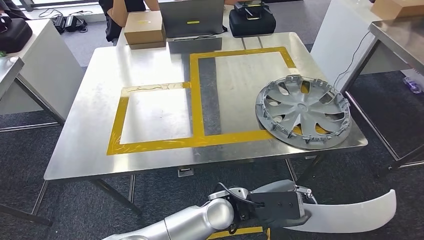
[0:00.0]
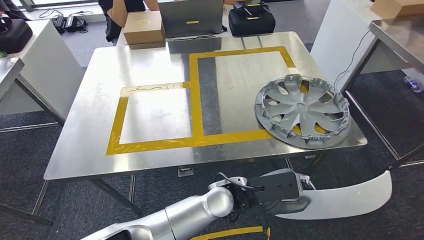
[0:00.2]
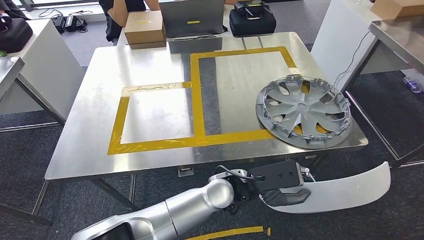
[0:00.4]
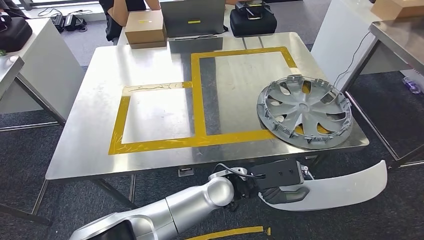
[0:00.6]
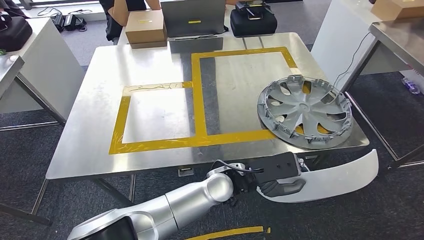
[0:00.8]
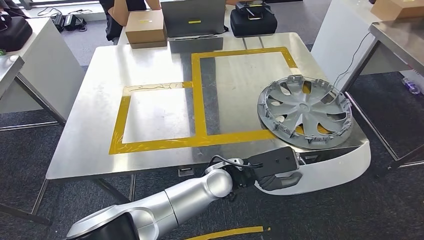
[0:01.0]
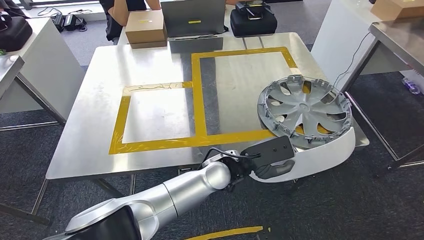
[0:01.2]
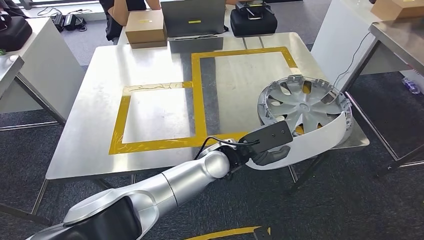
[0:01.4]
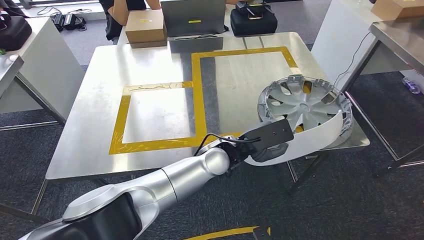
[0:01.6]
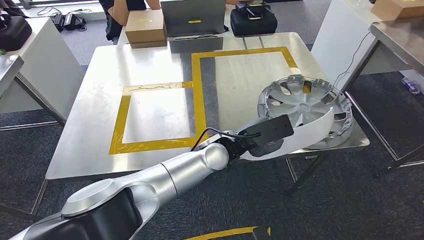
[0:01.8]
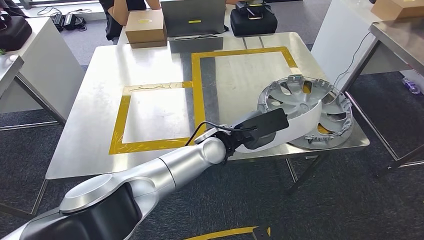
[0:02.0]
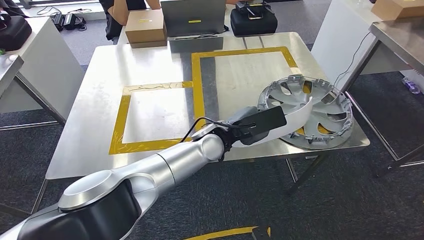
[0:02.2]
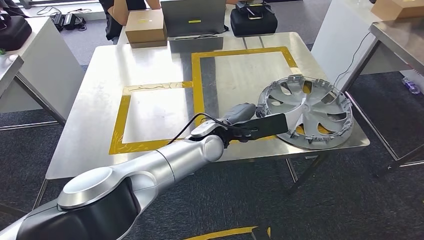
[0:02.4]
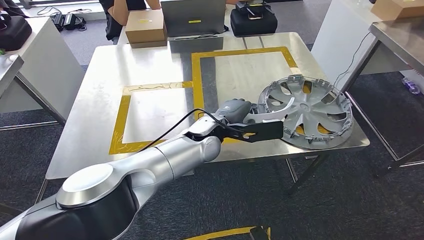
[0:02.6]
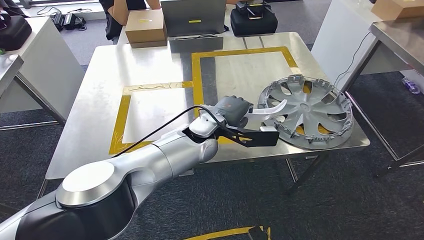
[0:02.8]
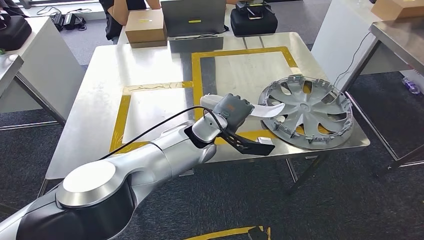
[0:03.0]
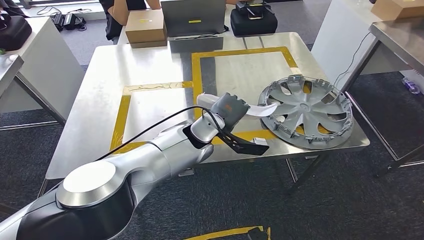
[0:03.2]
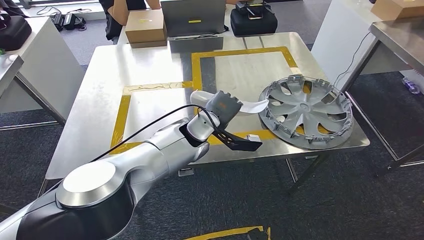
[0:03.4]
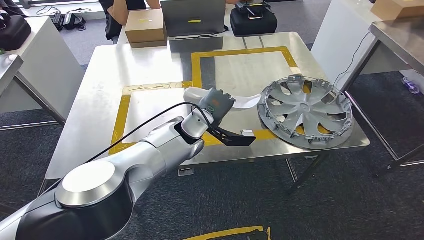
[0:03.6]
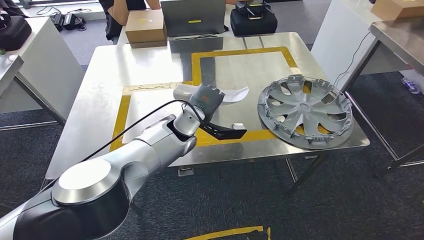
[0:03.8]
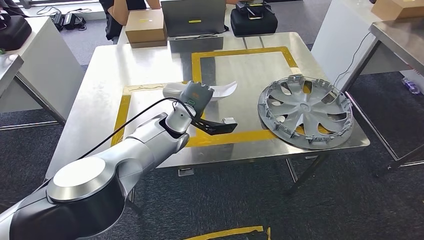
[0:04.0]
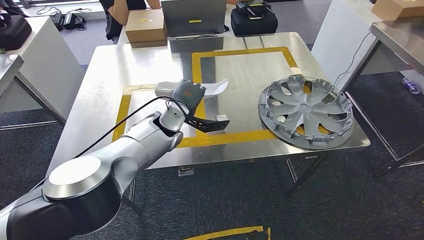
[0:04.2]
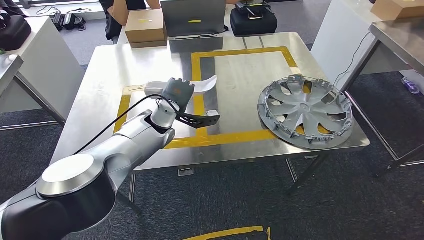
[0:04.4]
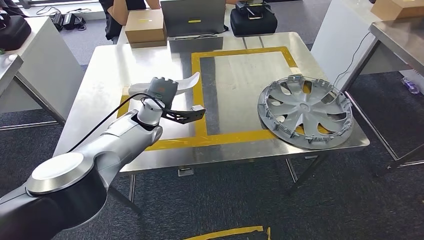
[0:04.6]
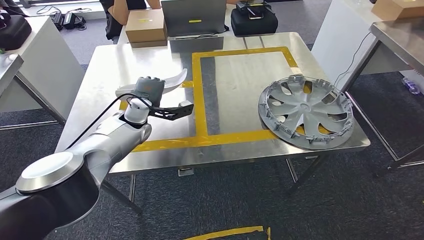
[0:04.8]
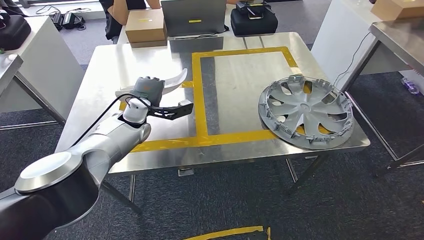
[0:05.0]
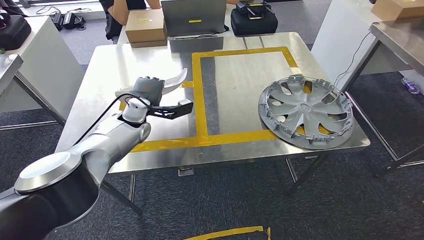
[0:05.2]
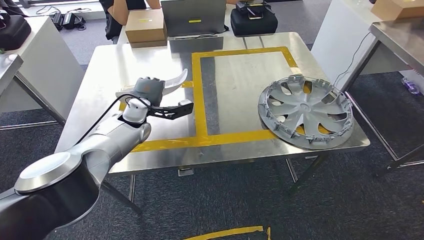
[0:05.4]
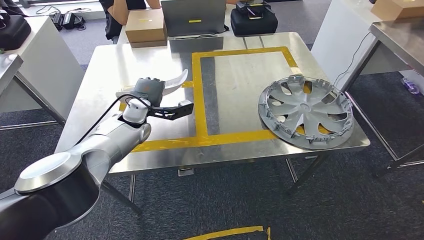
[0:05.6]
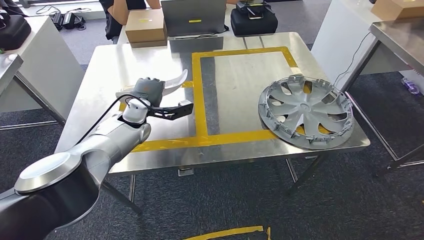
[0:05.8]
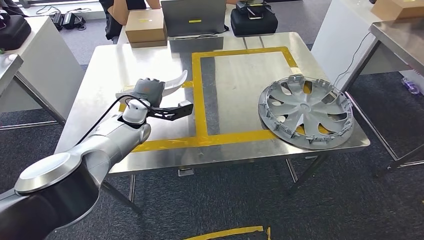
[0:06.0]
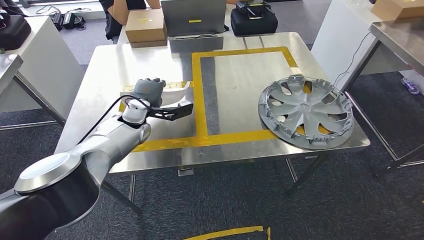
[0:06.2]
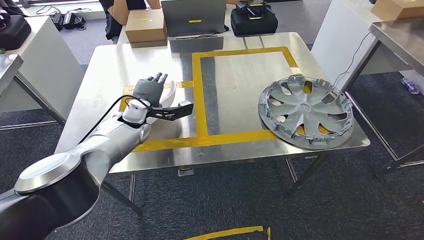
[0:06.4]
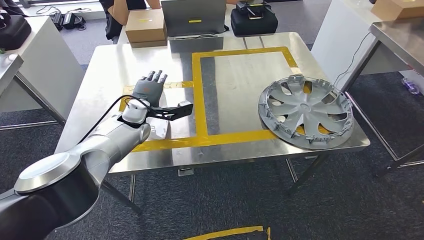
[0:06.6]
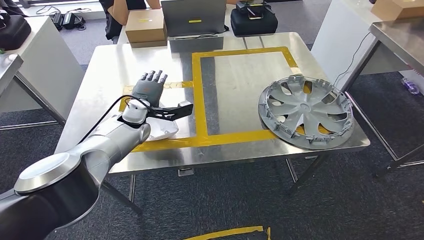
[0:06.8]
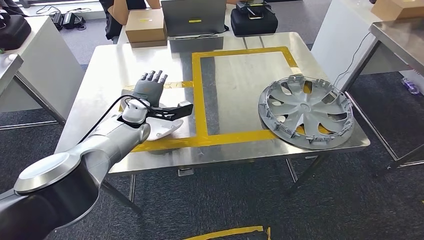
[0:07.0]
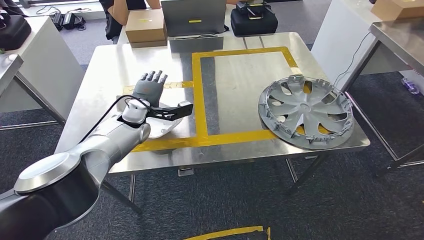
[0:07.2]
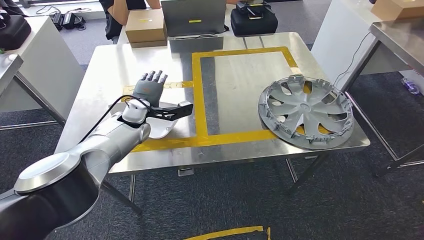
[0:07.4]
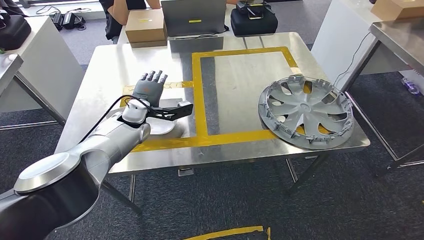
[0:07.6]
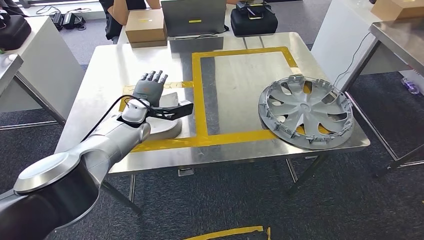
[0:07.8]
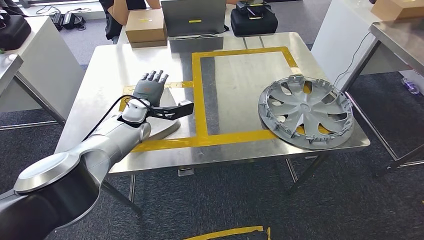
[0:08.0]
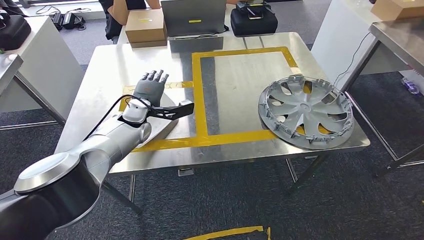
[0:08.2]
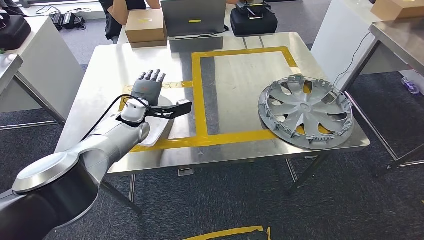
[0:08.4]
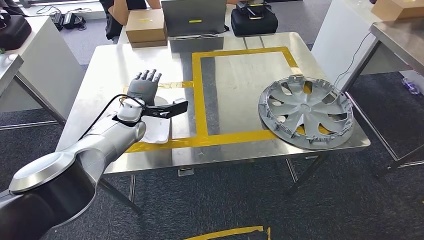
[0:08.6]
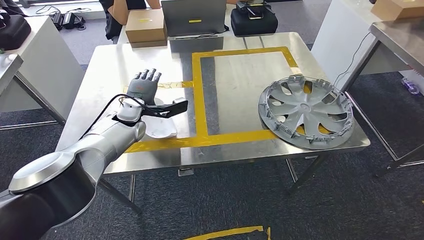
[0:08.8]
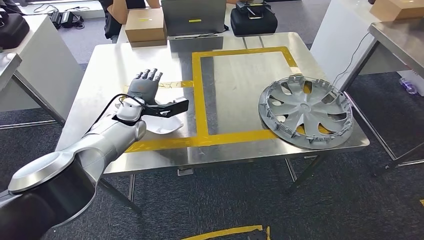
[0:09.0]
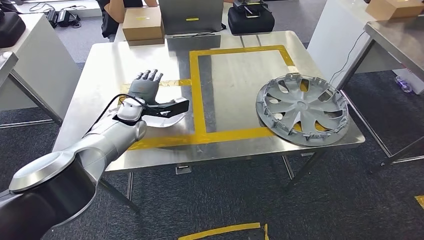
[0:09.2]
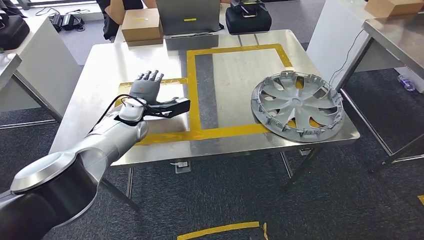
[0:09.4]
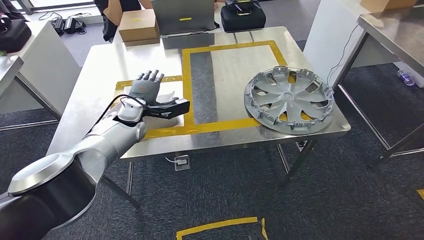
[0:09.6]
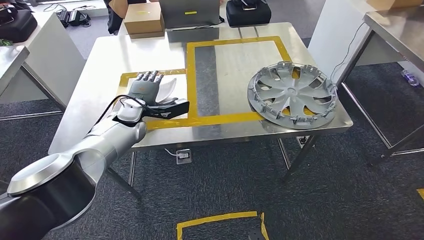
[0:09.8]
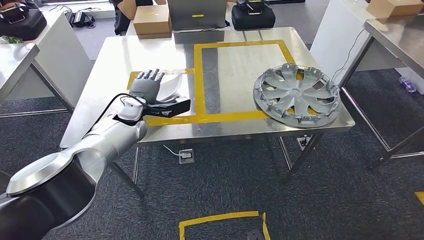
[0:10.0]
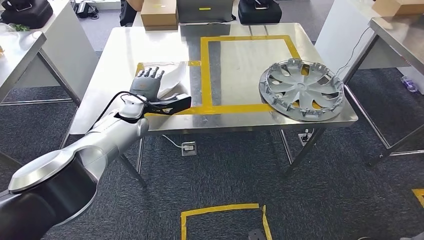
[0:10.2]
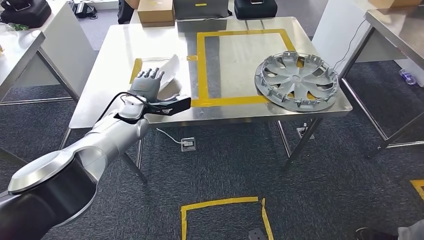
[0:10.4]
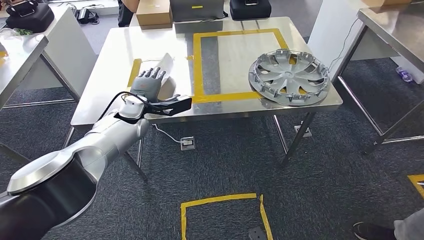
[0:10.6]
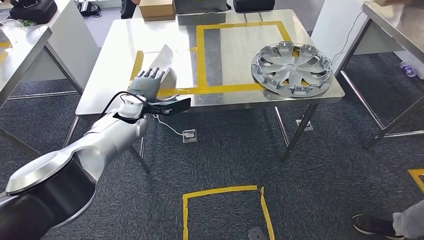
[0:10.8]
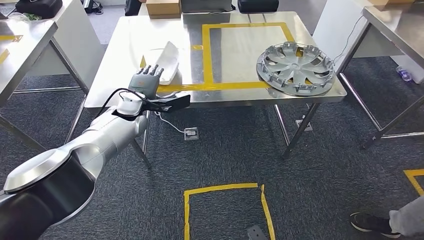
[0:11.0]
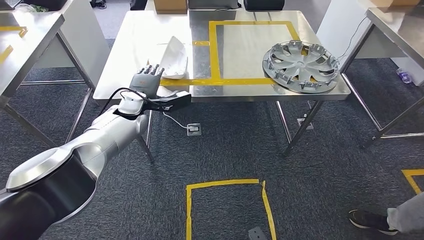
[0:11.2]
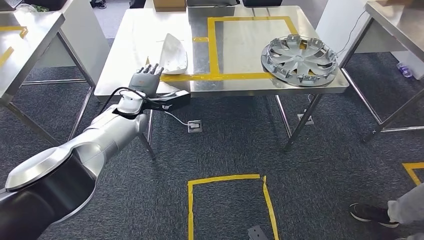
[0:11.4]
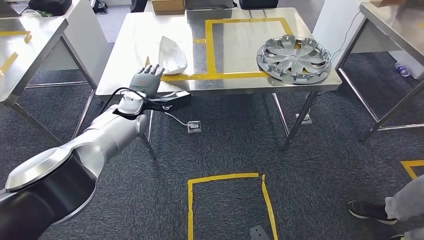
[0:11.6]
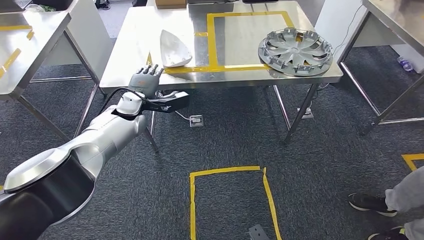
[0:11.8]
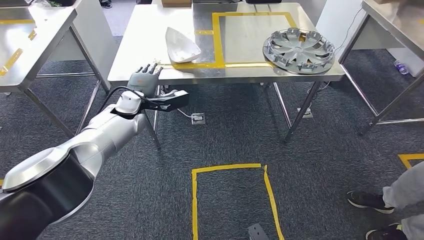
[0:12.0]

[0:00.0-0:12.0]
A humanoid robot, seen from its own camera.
Step, 0:01.6 to 0:08.4: Insert the small component into the corresponding slot on the workbench.
0:01.6 to 0:03.0: The left hand ends up approximately 5 cm from where it was.
0:03.0 to 0:04.4: The left hand travels to the left and forward by roughly 15 cm.
0:04.4 to 0:06.0: The left hand travels to the left by approximately 10 cm.
0:06.0 to 0:07.6: Neither hand changes place.
0:07.6 to 0:09.0: There are only small adjustments of the hands.

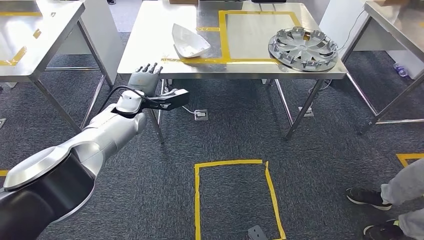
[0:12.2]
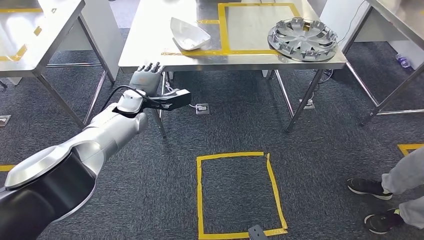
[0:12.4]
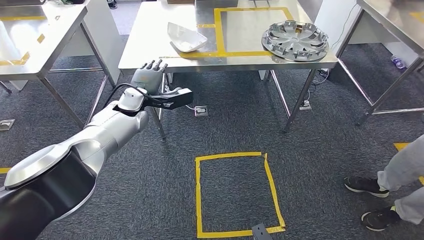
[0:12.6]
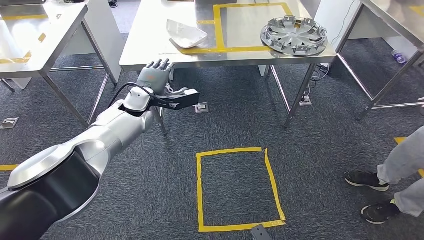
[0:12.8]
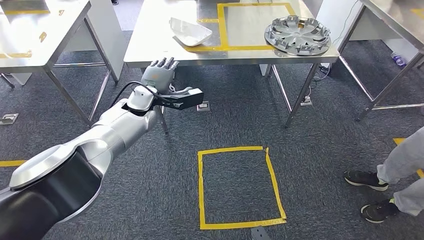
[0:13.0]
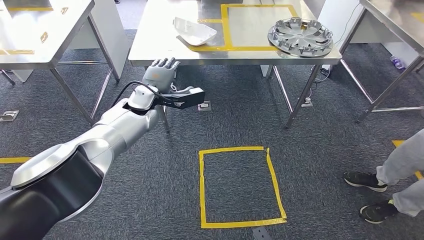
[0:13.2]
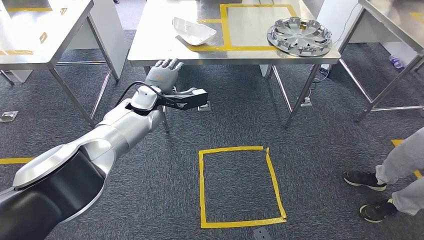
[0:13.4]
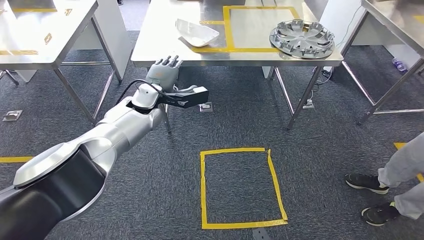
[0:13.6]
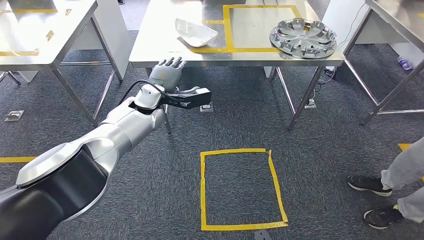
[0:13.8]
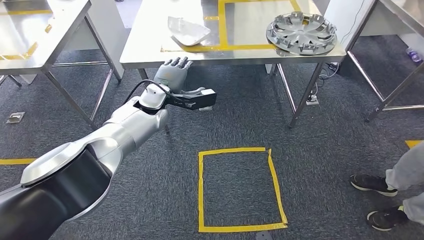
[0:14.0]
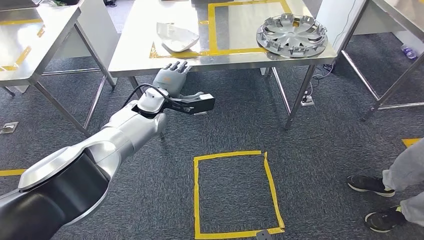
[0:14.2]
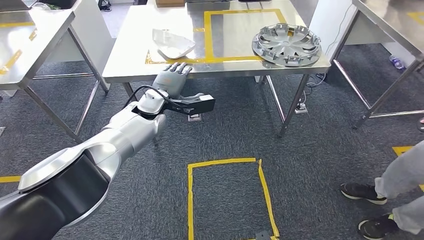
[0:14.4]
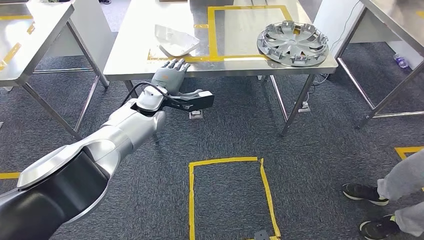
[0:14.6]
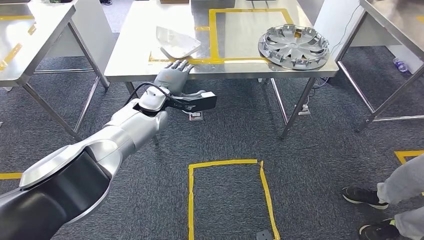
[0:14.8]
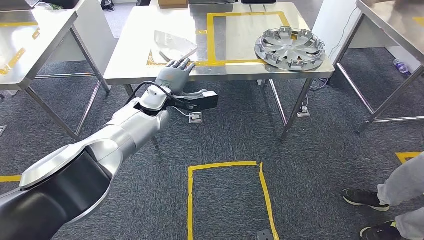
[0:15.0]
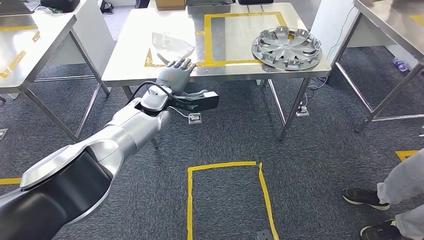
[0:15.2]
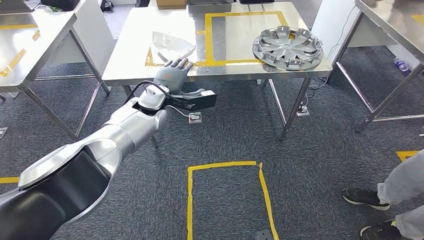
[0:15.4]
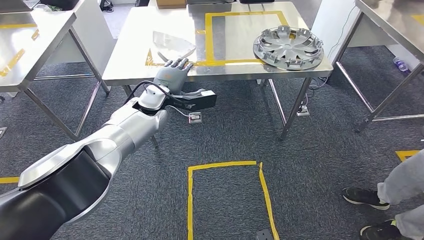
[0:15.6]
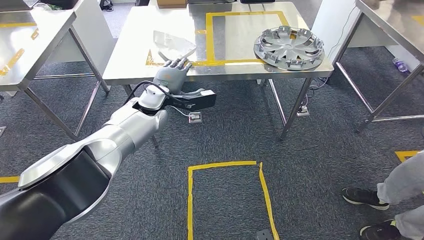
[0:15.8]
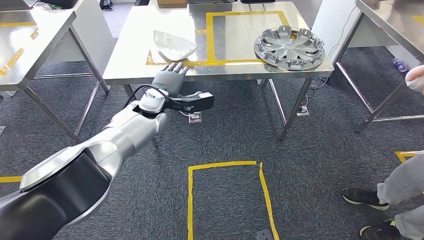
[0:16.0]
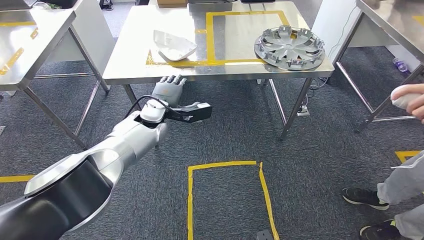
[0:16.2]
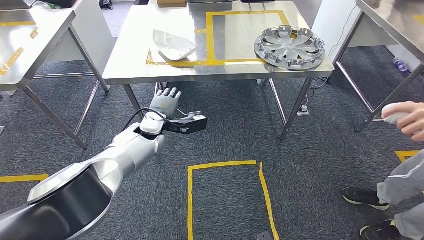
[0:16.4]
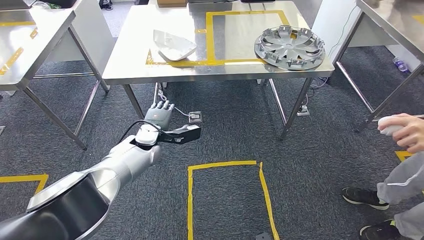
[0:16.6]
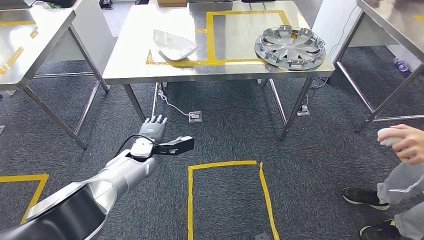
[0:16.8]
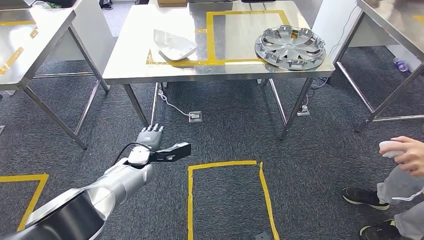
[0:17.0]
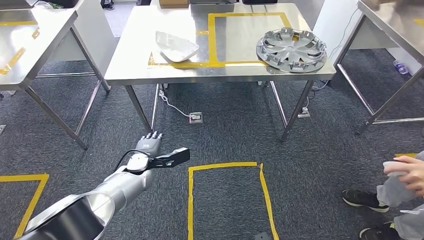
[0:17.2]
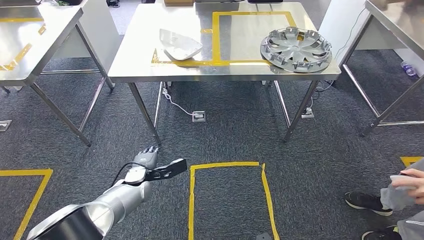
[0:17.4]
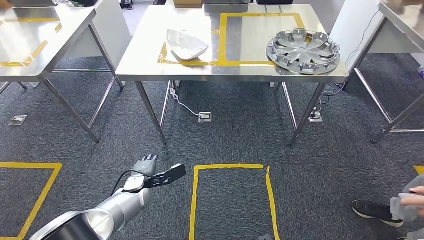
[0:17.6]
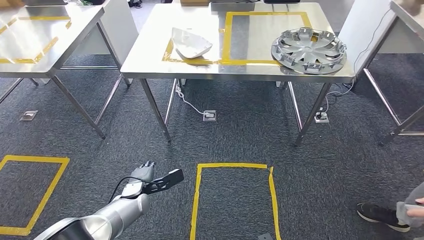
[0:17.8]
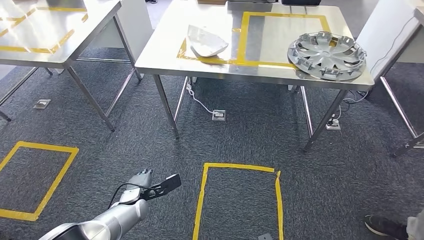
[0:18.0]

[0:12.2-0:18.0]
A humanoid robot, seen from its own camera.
0:15.0 to 0:16.6: The left hand travels downward by roughly 10 cm.
